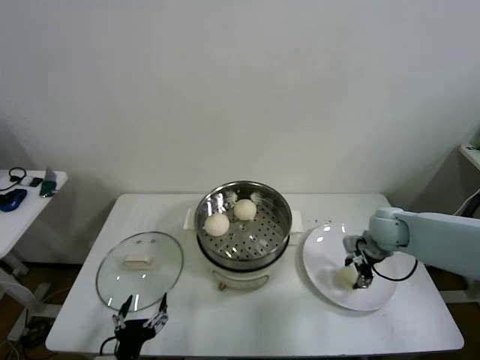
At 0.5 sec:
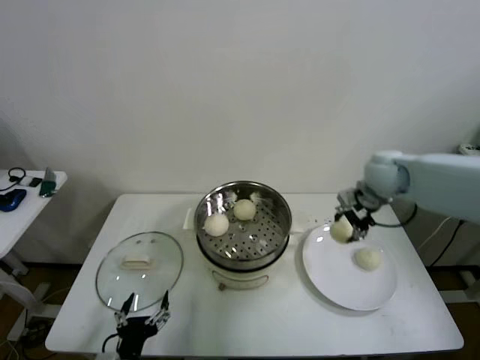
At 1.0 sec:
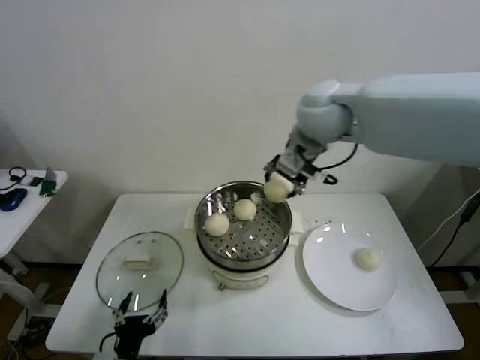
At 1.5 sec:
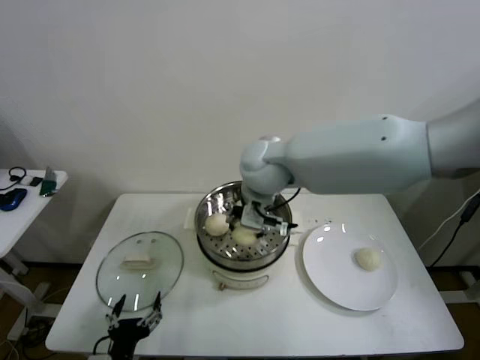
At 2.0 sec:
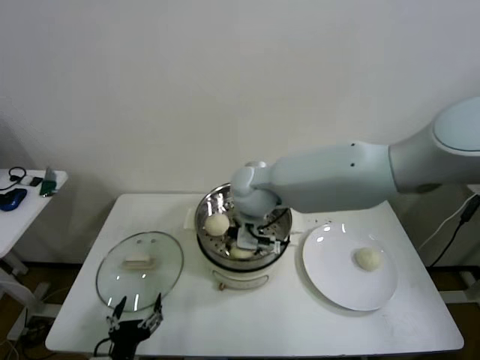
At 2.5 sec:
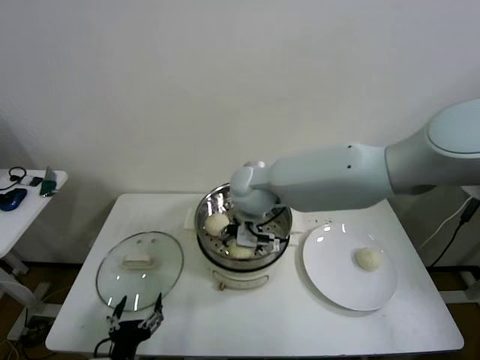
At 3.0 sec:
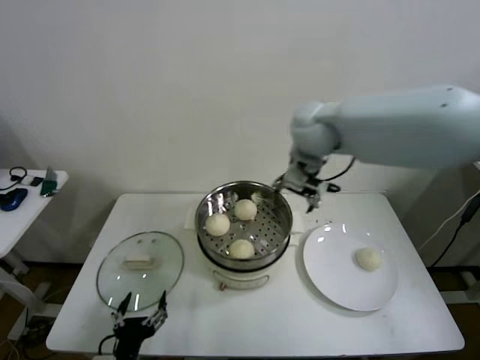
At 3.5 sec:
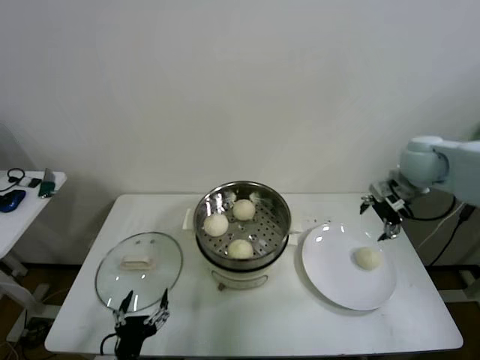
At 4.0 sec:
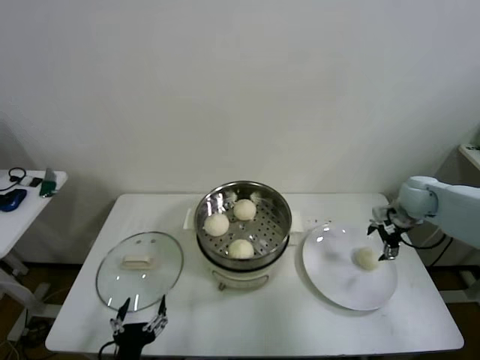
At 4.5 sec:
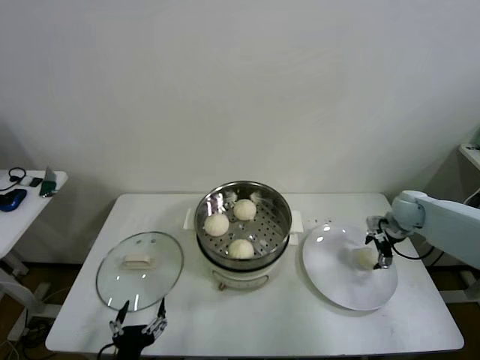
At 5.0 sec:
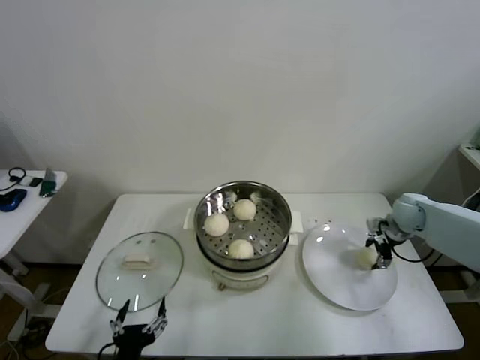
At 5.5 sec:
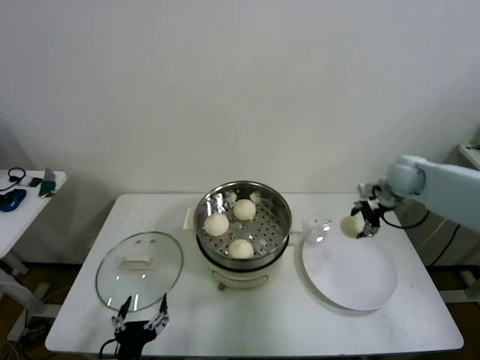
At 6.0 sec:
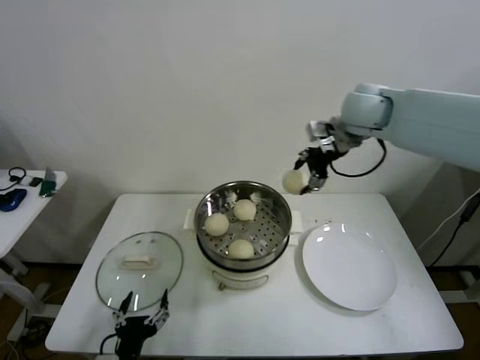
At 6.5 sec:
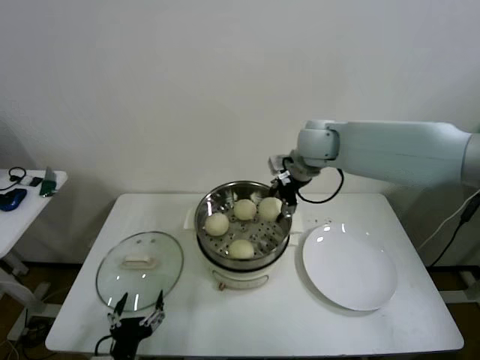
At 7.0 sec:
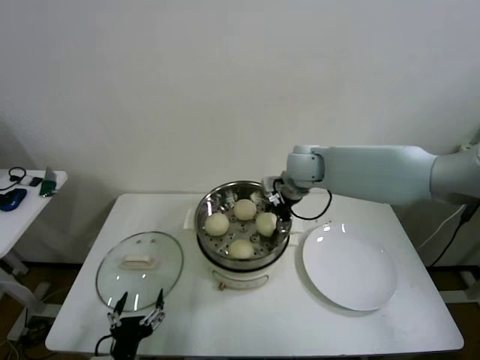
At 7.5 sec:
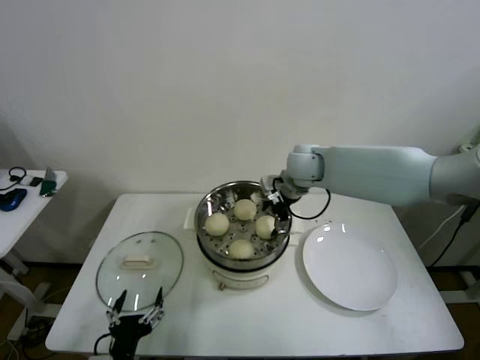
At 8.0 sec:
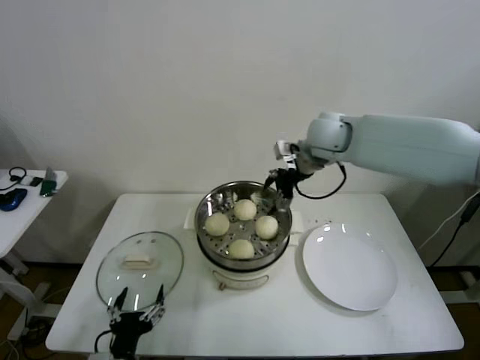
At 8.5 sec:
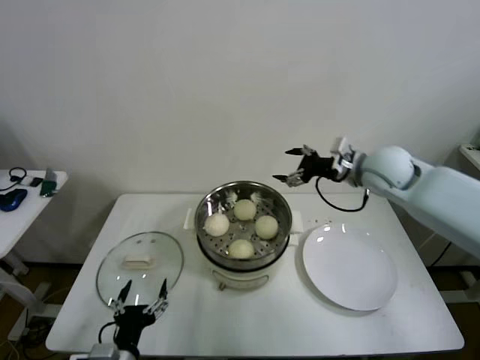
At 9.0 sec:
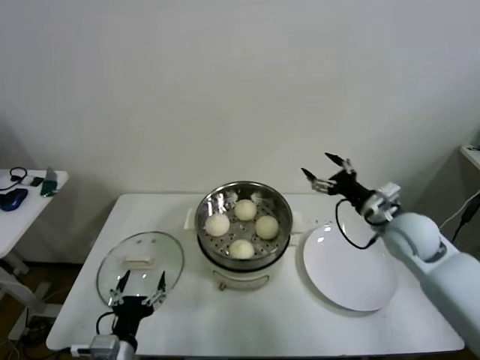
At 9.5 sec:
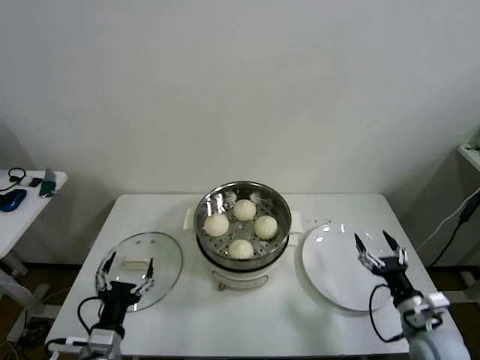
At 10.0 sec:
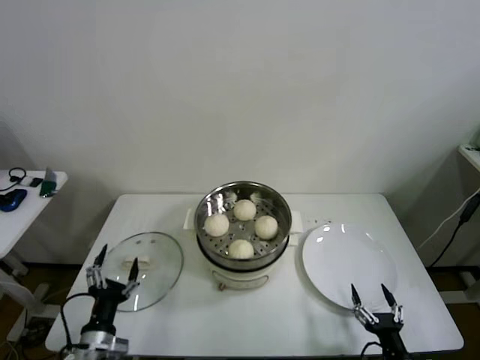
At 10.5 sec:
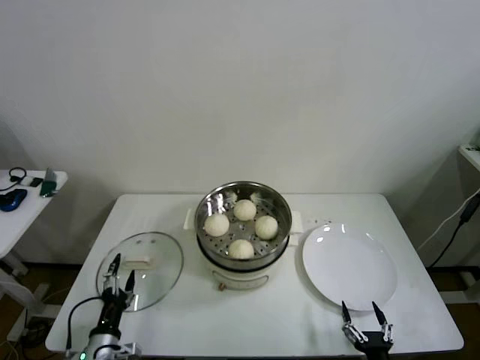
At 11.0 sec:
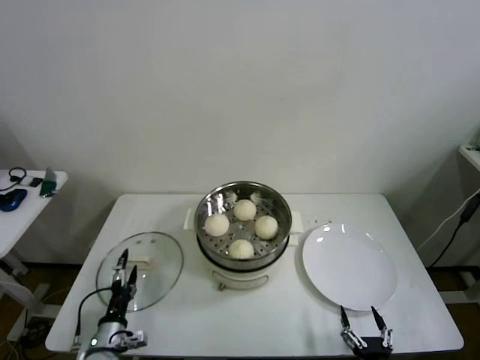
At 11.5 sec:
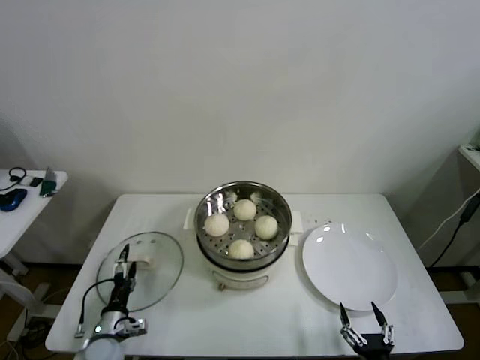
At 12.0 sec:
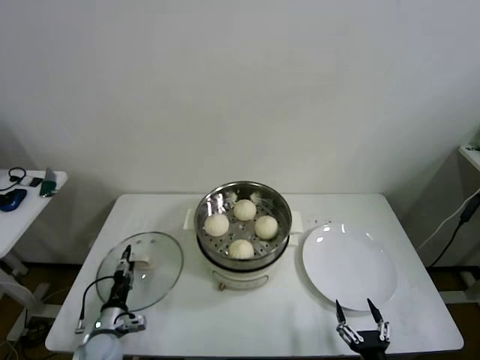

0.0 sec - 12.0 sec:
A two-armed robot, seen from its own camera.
Step, 0.0 sec - 2.0 sec: Place the baozi on the steamer with right gripper.
Step, 2.5 sec - 4.5 sec: Grasp the baozi in the plate with right gripper.
Step, 5.5 sec - 7.0 sec: Place the baozi on the steamer with right gripper.
0.0 sec - 2.0 sec: The right gripper travels to the left and upward by roughly 35 cm.
2.0 sec - 4.0 sec: The right gripper moves to the right, about 40 cm, and opens its fingers.
4.0 sec - 6.0 sec: The right gripper is displaced upward and to the left by roughly 30 cm, and closes up.
6.0 sec - 8.0 sec: The right gripper heads downward, covering about 5 cm, and opens.
8.0 sec - 10.0 sec: The left gripper goes roughly 10 cm to the left and forward. The right gripper travels backward and downward by some 60 cm.
10.0 sec - 12.0 sec: The left gripper shifts approximately 15 cm downward and forward, and closes. The right gripper ends up roughly 5 cm from where it was.

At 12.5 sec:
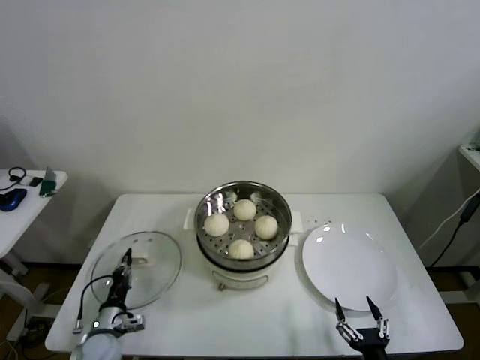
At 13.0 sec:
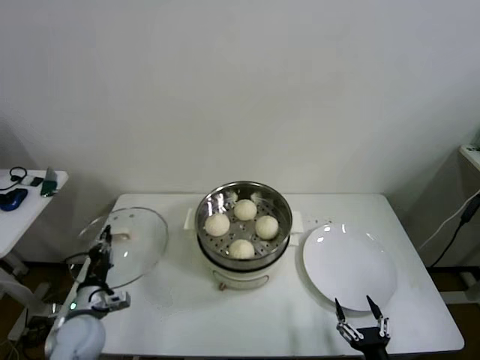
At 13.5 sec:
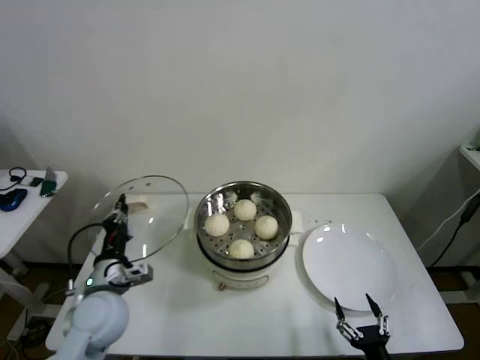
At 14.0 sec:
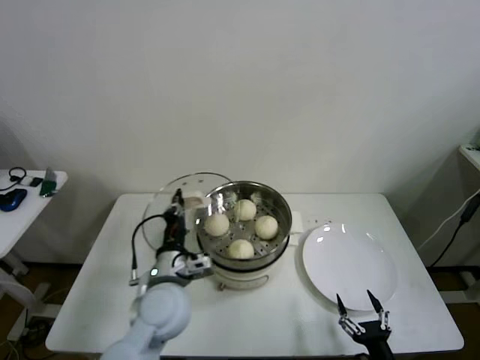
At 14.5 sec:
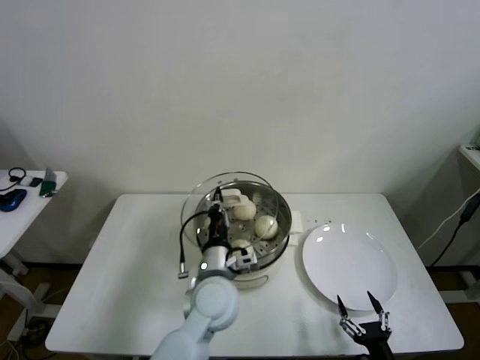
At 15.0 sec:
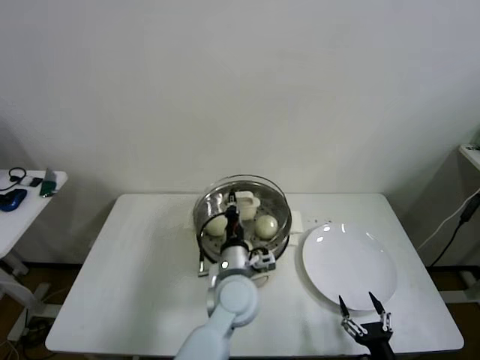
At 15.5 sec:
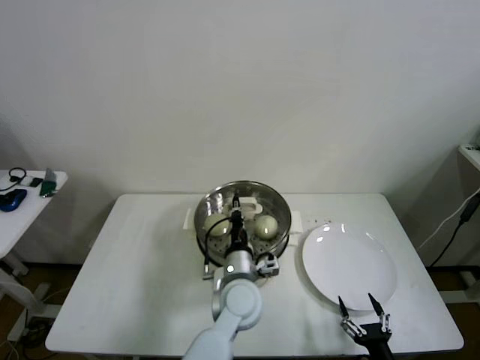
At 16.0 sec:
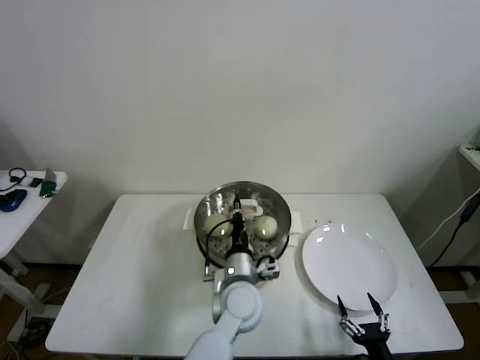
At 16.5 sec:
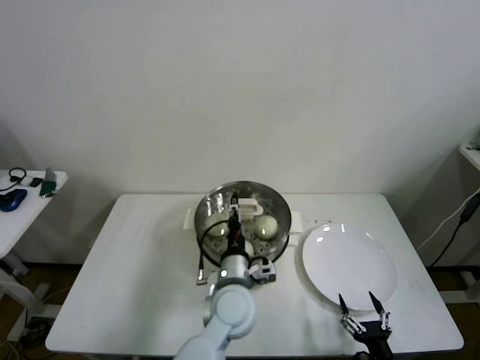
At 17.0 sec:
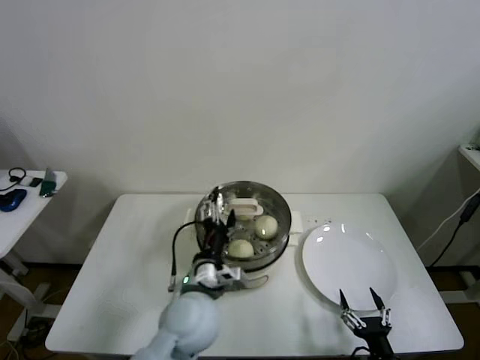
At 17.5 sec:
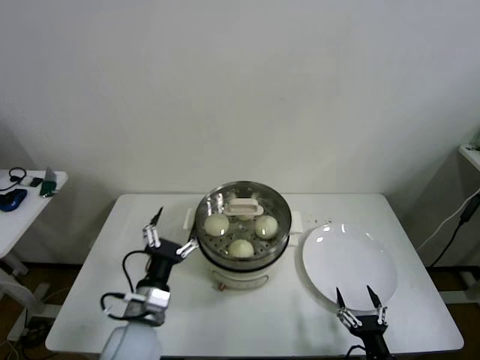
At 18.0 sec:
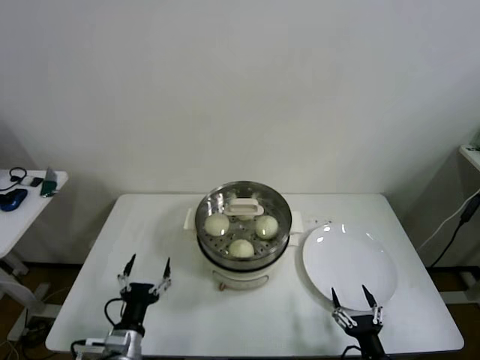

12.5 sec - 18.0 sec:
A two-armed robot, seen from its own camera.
Step, 12.5 sec - 16.0 sec: Place the pot lid on the steamer with left gripper.
12.5 sec - 14.5 sec: The left gripper heads to the right and upward, covering about 35 cm.
14.5 sec - 16.0 sec: The left gripper travels to the right by roughly 5 cm.
16.0 sec - 18.0 sec: The left gripper is displaced to the left and backward by approximately 30 cm, and opens its fingers.

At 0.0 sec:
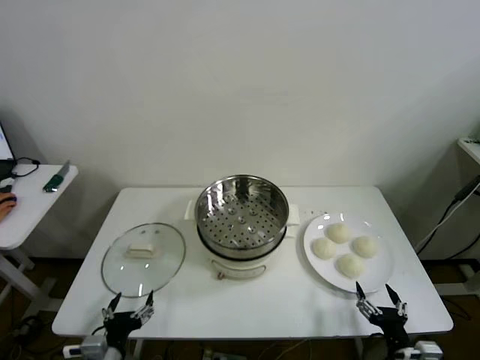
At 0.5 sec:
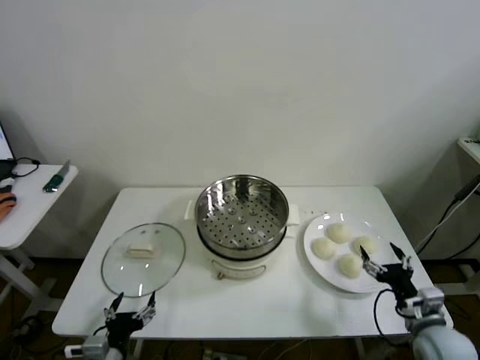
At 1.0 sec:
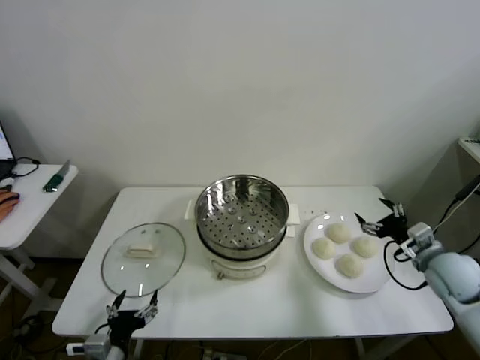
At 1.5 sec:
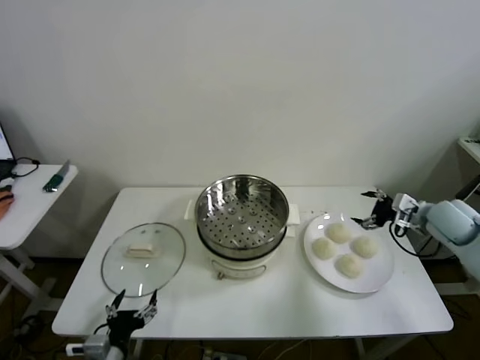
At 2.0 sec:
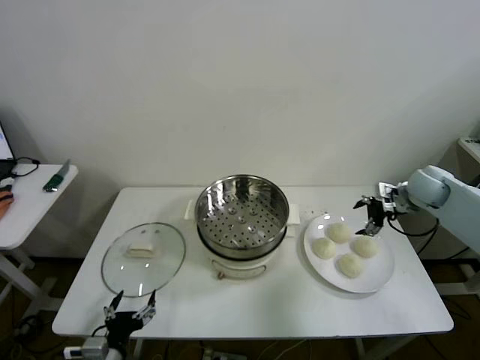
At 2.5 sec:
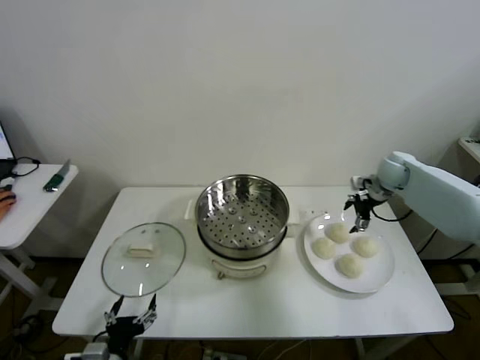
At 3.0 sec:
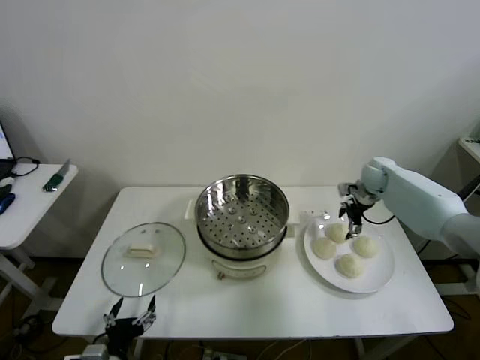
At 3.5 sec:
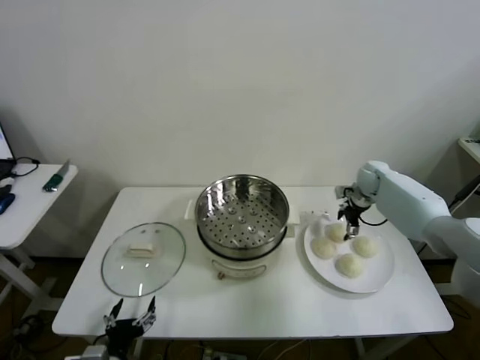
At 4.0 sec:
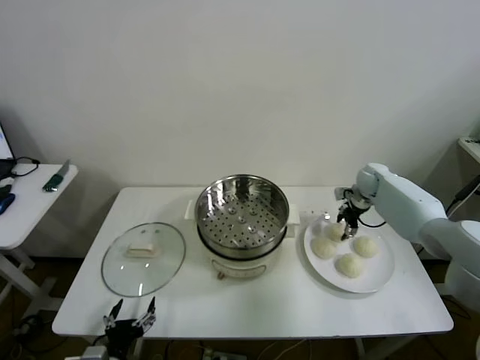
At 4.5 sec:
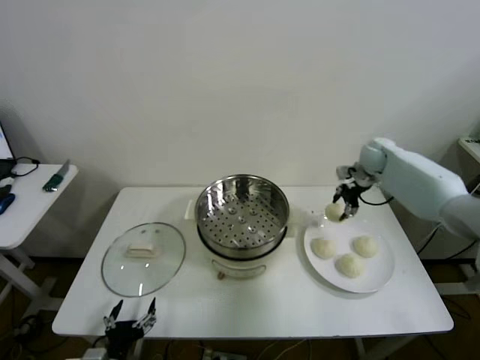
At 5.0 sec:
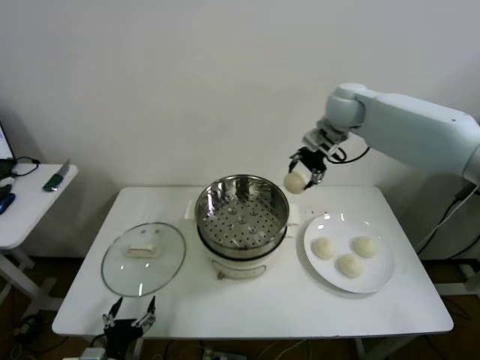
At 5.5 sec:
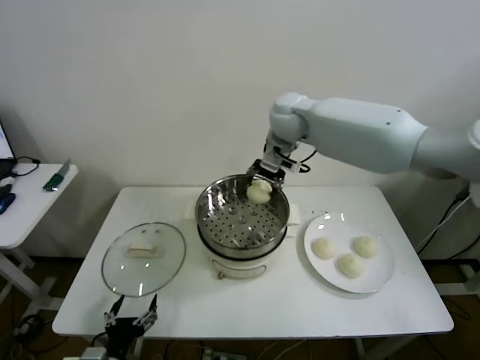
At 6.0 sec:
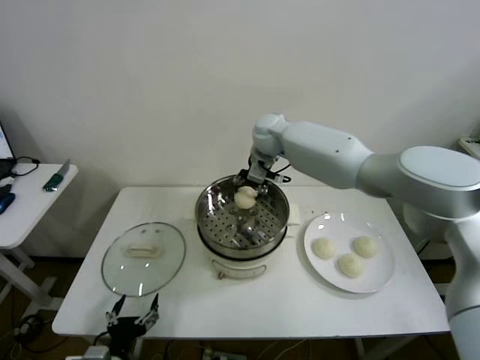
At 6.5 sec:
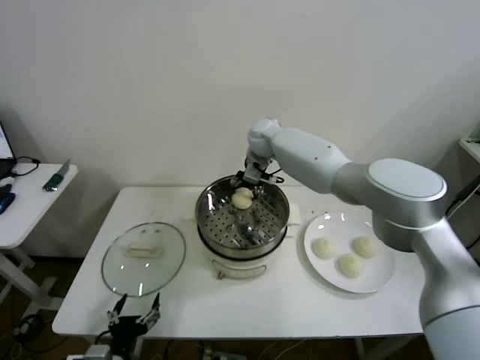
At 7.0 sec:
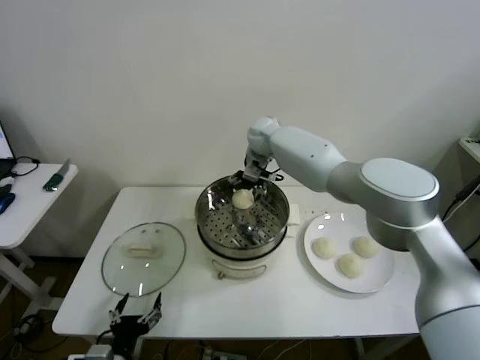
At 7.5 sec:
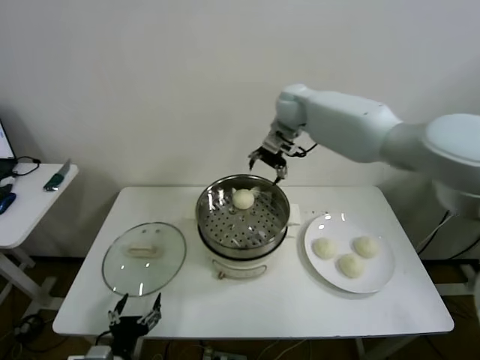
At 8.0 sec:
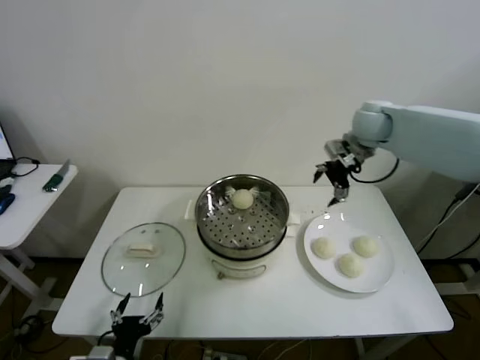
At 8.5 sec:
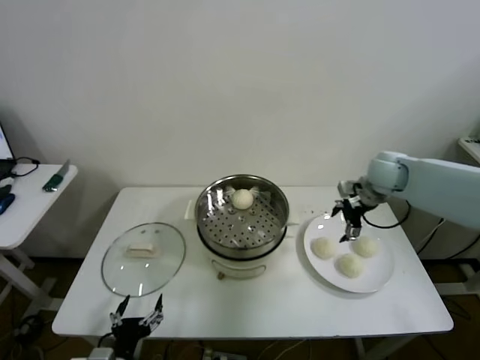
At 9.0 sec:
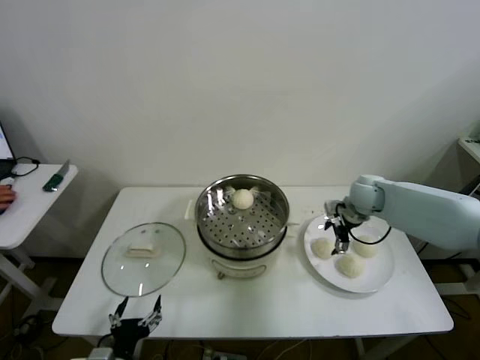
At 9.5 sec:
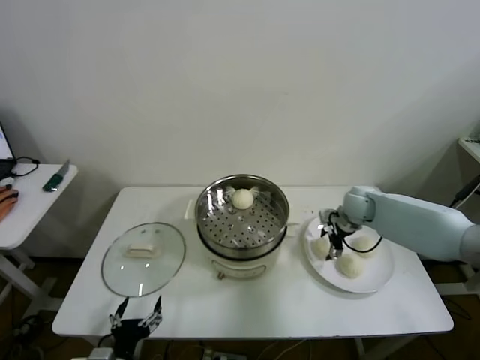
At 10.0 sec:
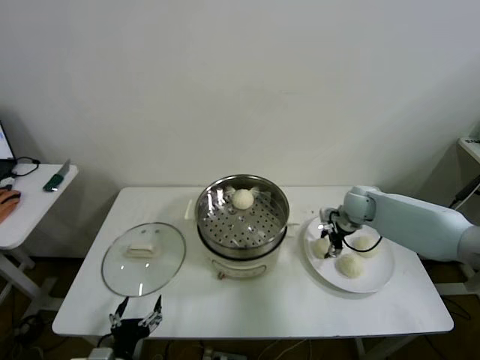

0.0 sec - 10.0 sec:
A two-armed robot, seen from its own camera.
Step, 0.0 sec - 3.5 sec: Grasp the baozi in the plate with right gripper.
Step, 4.0 sec - 6.5 sec: Place the baozi on the steamer with right gripper.
Step, 7.0 sec - 10.0 sec: Grasp the baozi in the plate with right gripper.
2.0 sec - 4.0 sec: The right gripper shifts about 15 cm forward, downward and to the left, and closes up.
4.0 sec - 6.0 sec: The right gripper shifts approximately 35 cm to the left and upward.
6.0 sec - 8.0 sec: The right gripper moves to the right, roughly 20 cm, and opens its fingers.
8.0 sec - 10.0 sec: The right gripper shifts roughly 25 cm downward, and closes up.
